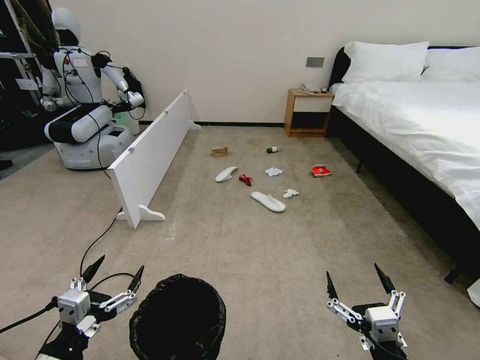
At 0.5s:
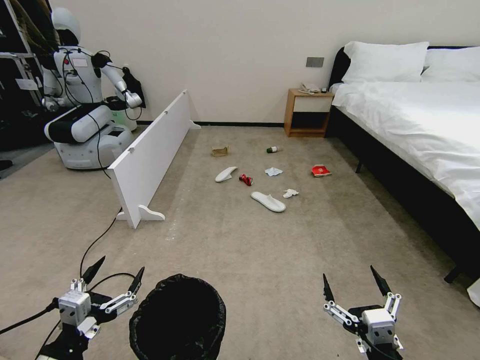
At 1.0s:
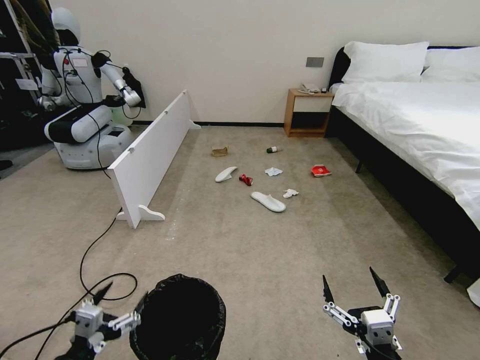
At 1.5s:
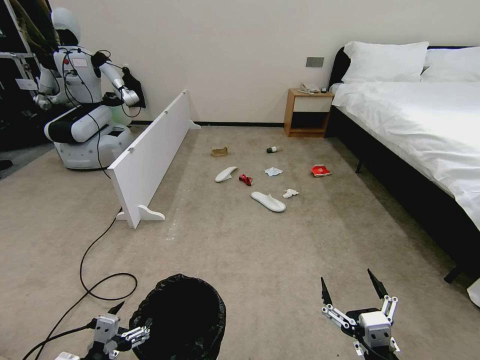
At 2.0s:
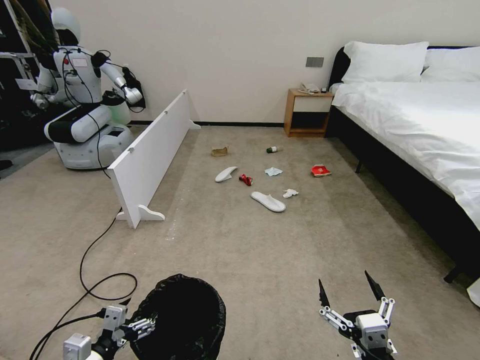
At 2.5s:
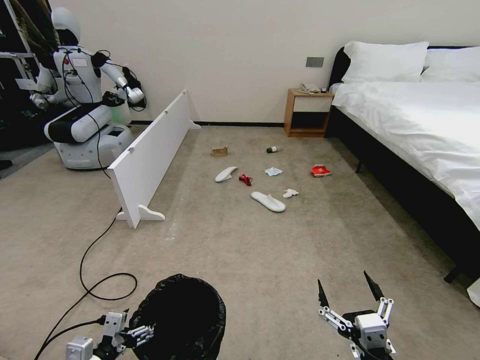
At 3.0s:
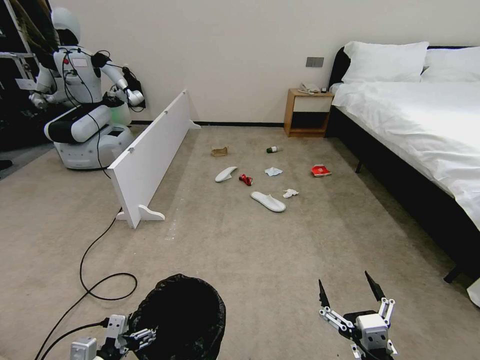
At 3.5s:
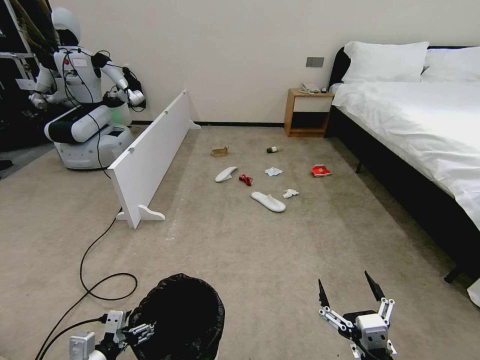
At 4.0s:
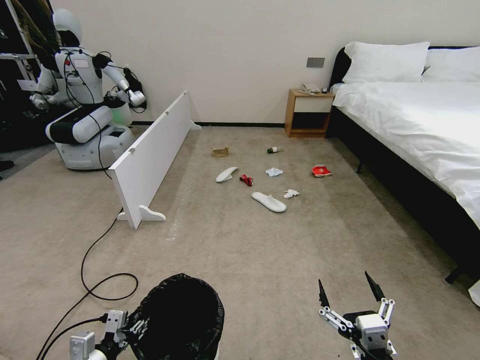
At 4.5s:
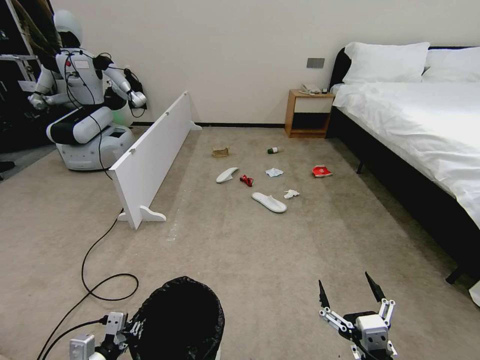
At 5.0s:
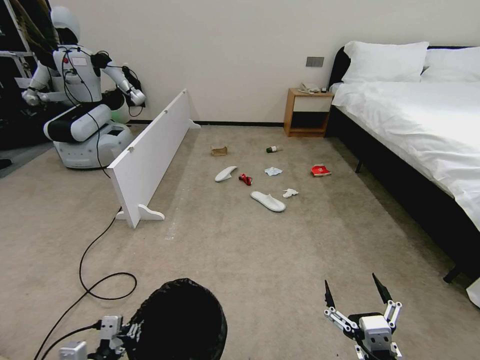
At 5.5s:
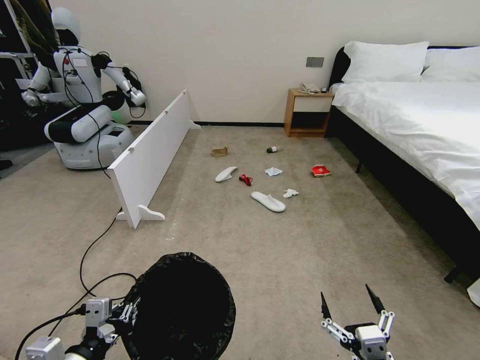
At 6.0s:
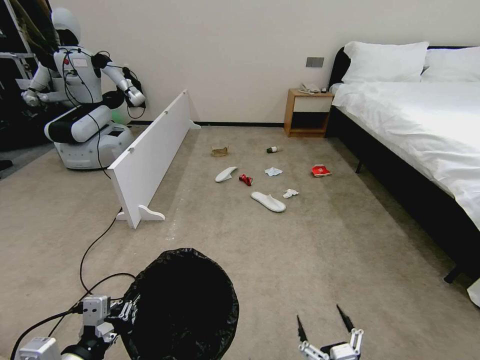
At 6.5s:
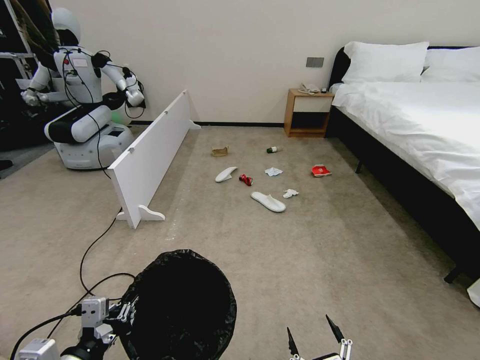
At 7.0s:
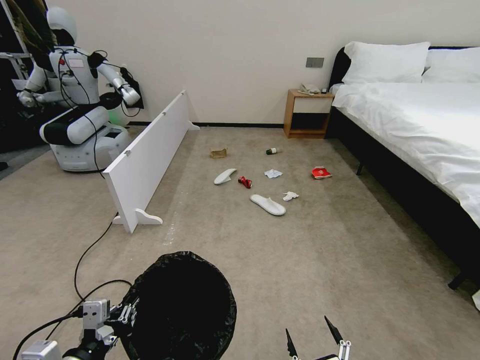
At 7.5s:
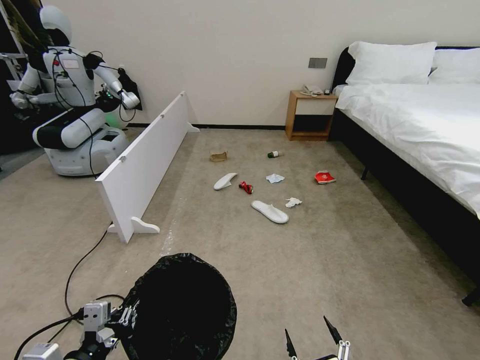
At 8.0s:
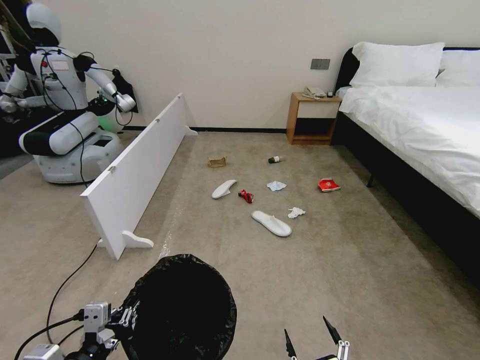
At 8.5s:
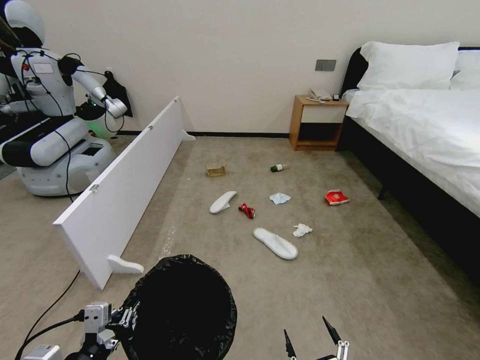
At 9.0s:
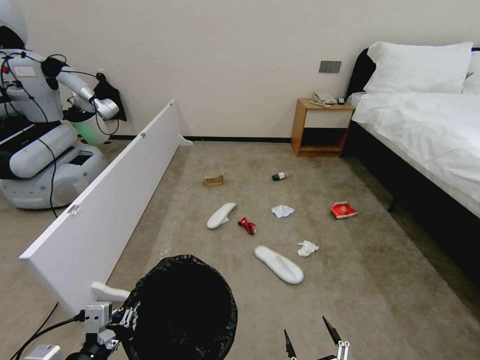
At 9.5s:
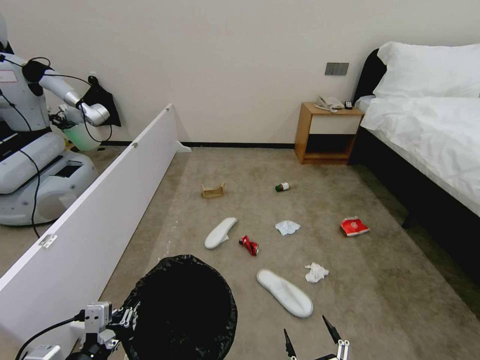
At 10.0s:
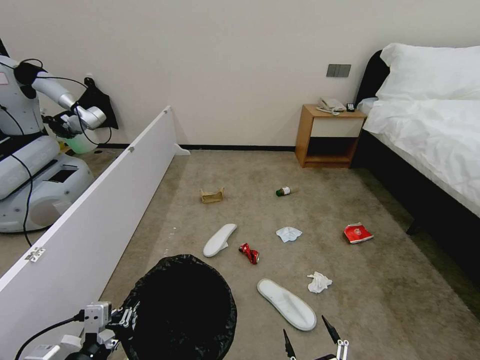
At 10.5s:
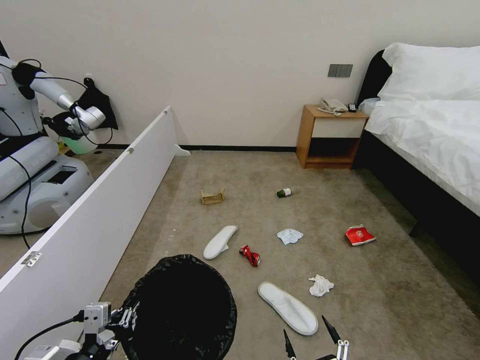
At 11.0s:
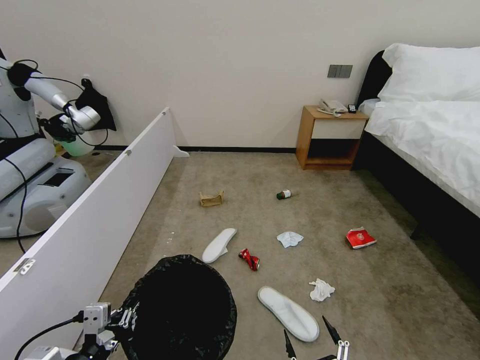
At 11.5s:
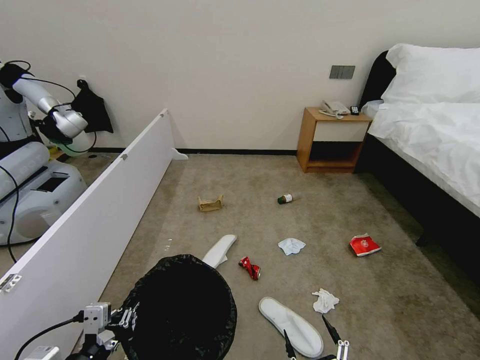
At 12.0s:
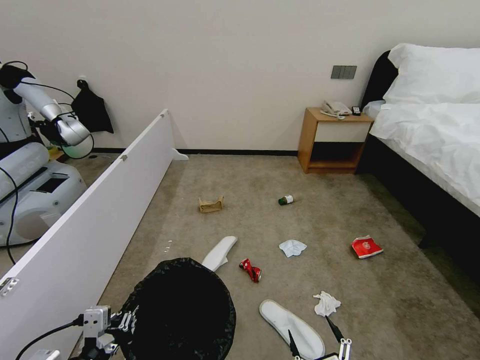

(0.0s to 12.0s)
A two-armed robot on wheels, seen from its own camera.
Task of the whole recording: Pick up the trash bin, then pick up the garbage from the floor and place it into the trash bin.
2.0s - 4.0s: The left gripper closes.
4.0s - 6.0s: The right gripper goes some 5 cm downward. Meanwhile the left gripper travels upward and backward by about 15 cm.
10.0s - 12.0s: The grippers make only small movements.

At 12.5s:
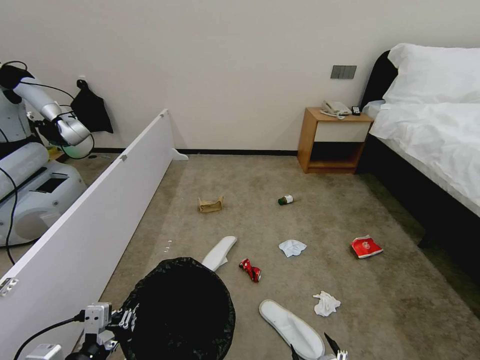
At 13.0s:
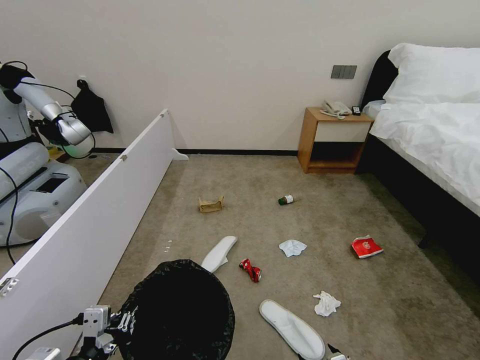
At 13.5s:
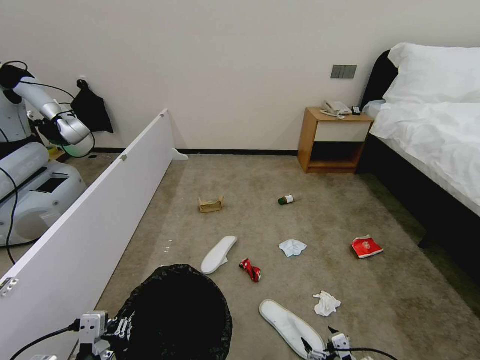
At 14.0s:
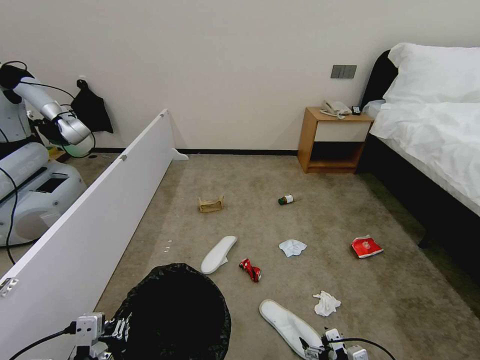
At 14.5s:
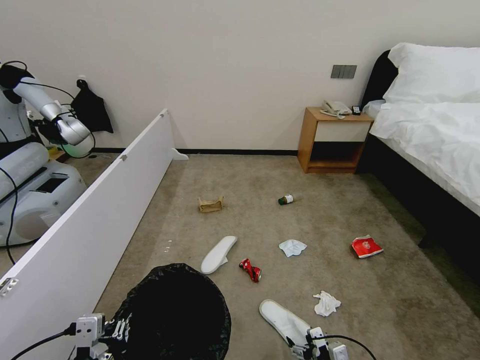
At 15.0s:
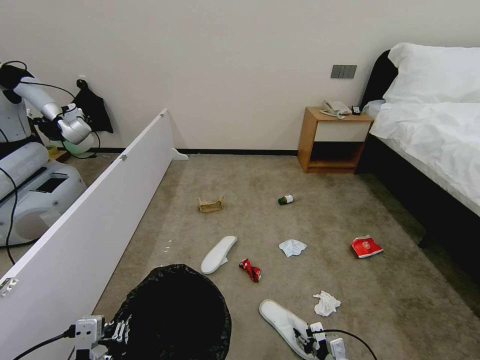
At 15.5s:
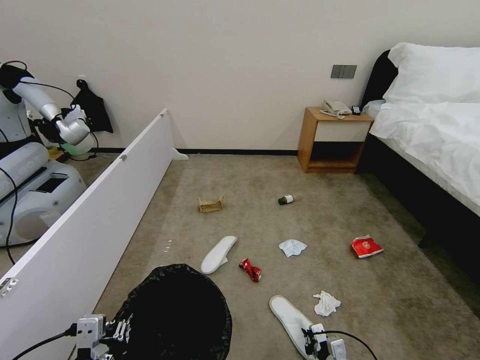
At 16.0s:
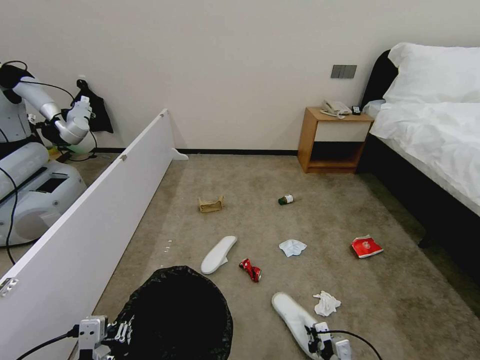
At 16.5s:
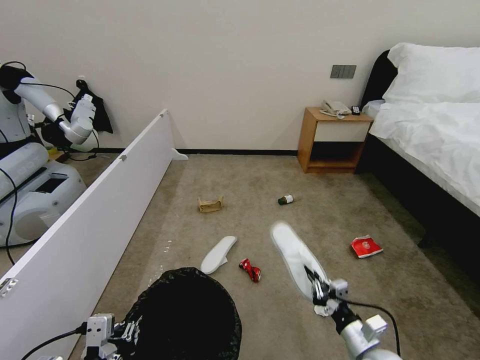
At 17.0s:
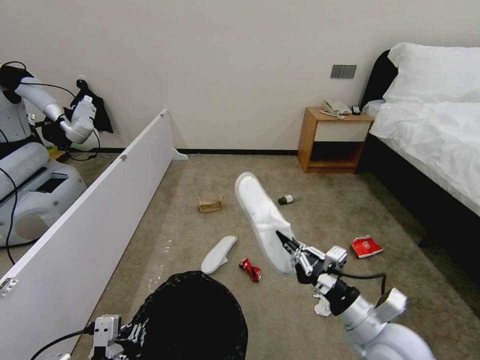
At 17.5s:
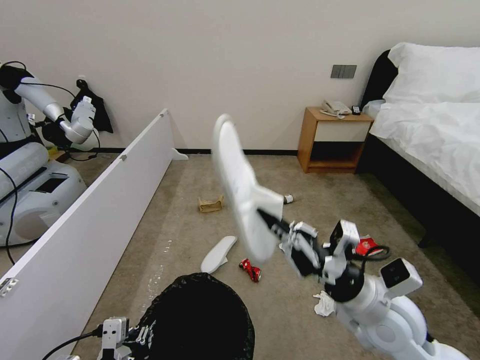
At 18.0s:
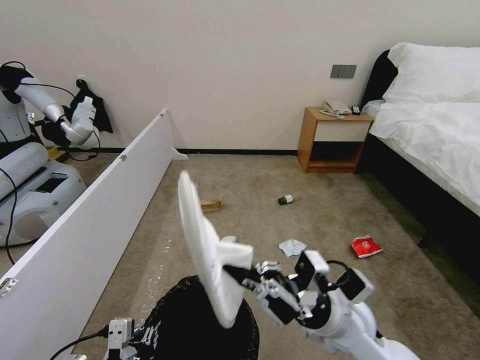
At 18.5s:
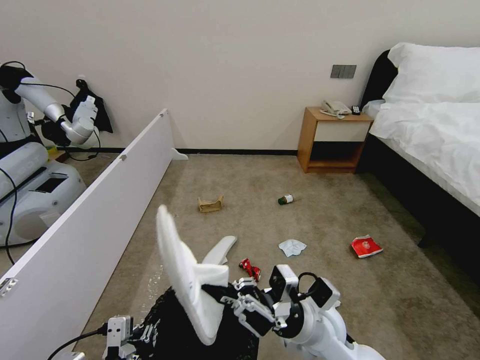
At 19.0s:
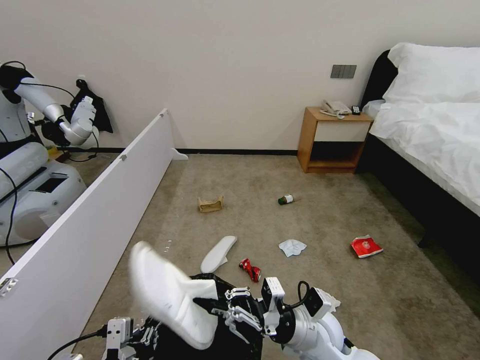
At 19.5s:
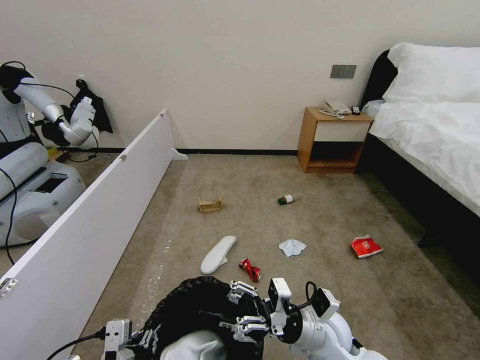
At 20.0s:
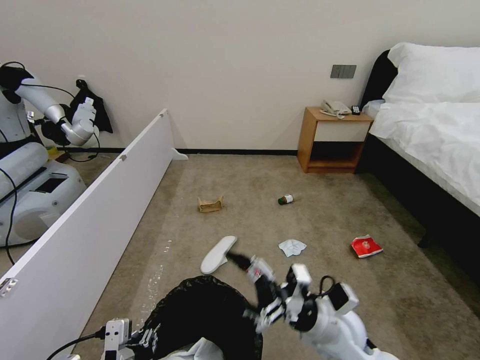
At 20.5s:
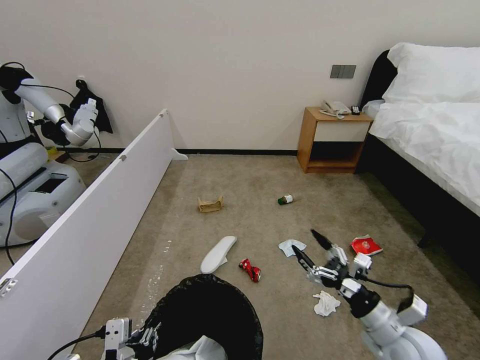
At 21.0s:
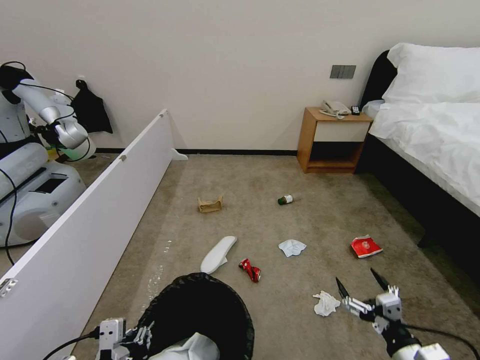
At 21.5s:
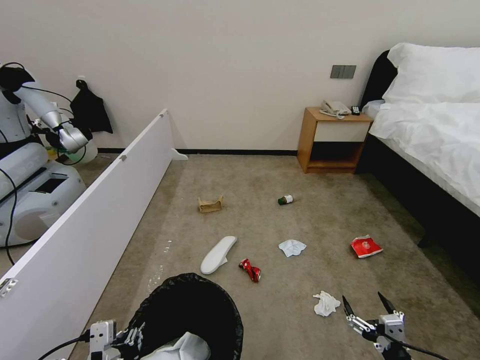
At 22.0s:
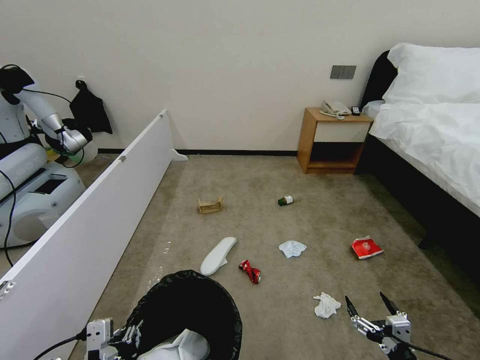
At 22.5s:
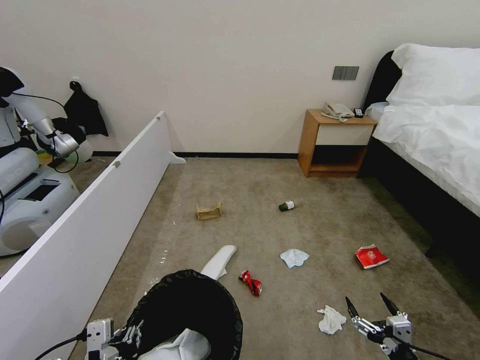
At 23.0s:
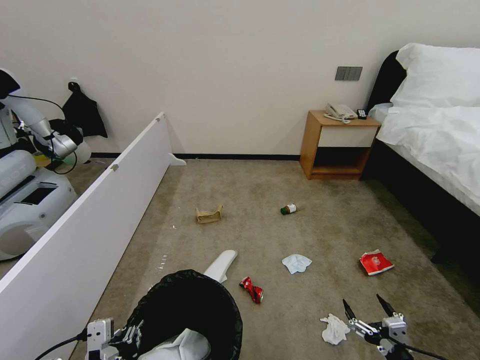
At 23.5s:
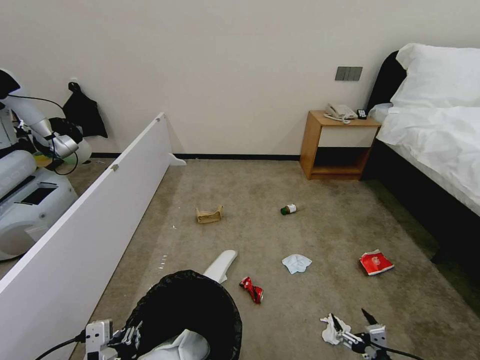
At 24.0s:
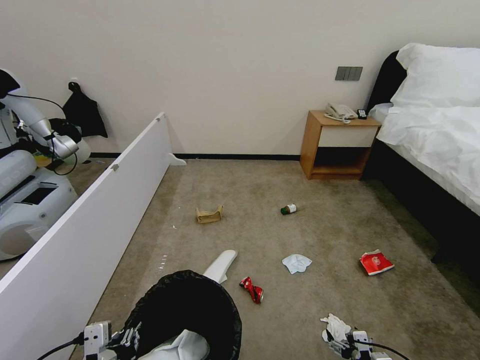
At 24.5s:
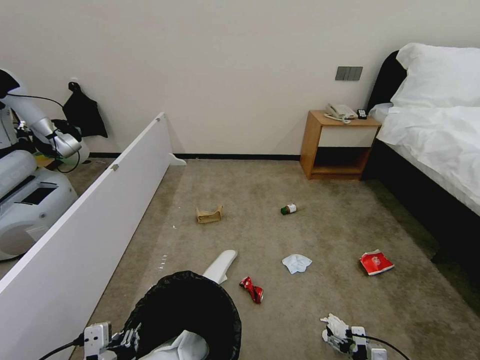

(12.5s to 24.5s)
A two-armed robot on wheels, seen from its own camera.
Task of the whole recording: Pick up the trash bin, then pick up the garbage from the floor and place it into the trash bin.
12.5s - 14.5s: The right gripper is displaced forward and downward by about 20 cm.
14.5s - 16.5s: The right gripper goes approximately 10 cm upward, and closes up.
16.5s - 18.5s: The right gripper moves to the left and upward, roughly 20 cm.
18.5s - 20.5s: The right gripper shifts some 15 cm to the right, and opens up.
20.5s - 22.5s: The right gripper shifts about 15 cm backward and downward.
22.5s - 24.5s: The right gripper shifts roughly 15 cm downward and forward.

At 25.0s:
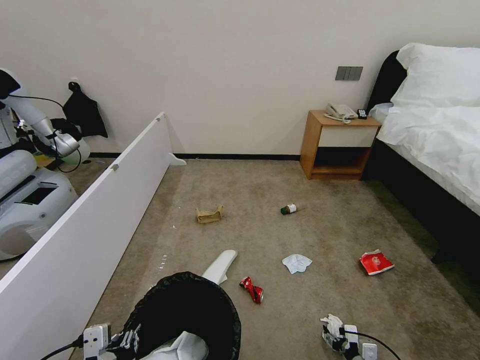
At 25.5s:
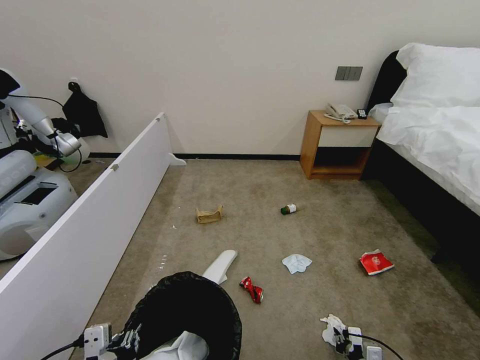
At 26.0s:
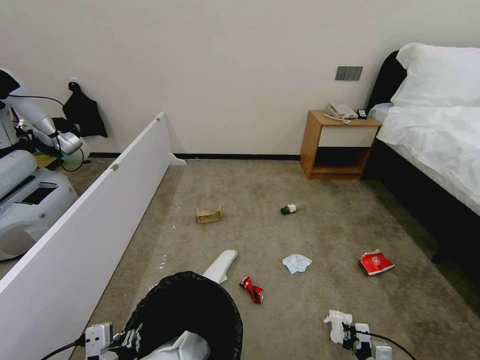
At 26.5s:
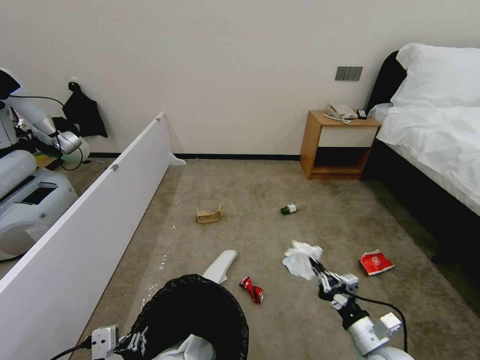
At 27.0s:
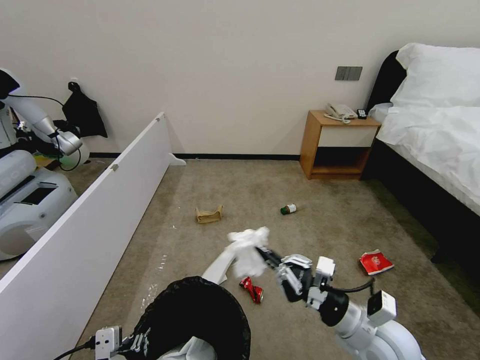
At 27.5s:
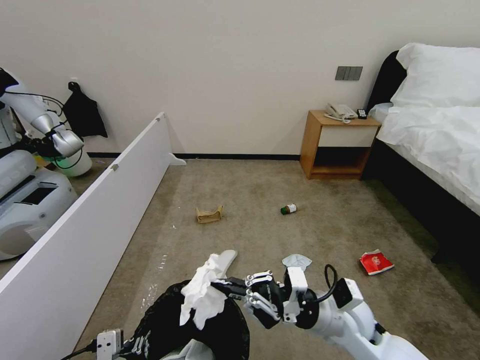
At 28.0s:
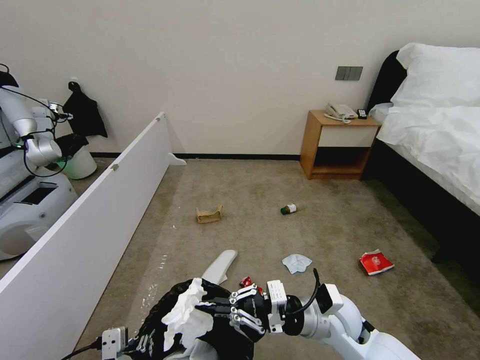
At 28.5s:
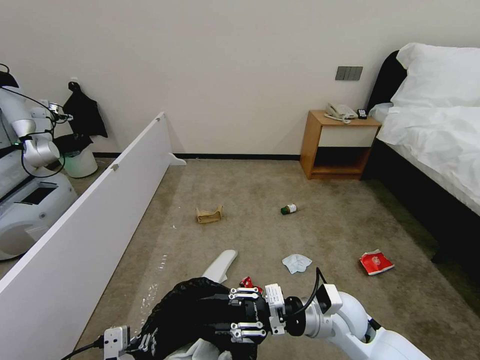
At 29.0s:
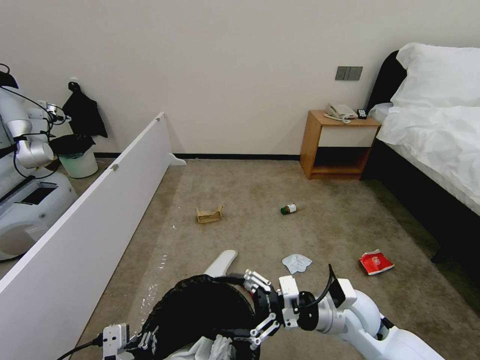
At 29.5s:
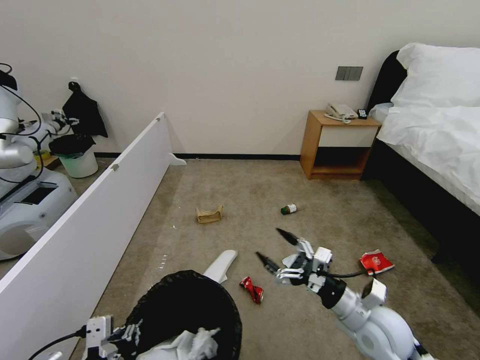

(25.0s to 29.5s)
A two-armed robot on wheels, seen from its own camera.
Task of the whole recording: Pick up the trash bin, then pick up the garbage from the floor and place it into the trash bin.
25.0s - 27.0s: The right gripper shifts some 30 cm upward, and closes its fingers.
27.0s - 29.5s: The right gripper travels to the left and back again, about 5 cm each way, and opens up.
